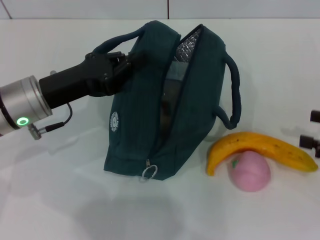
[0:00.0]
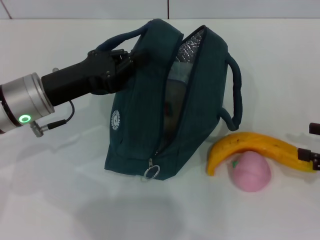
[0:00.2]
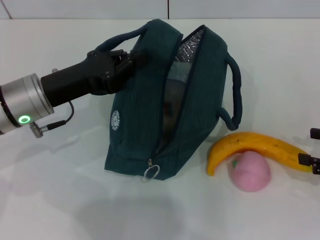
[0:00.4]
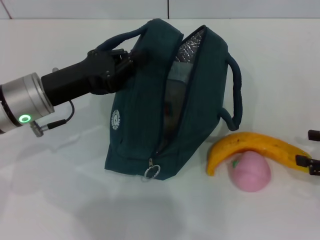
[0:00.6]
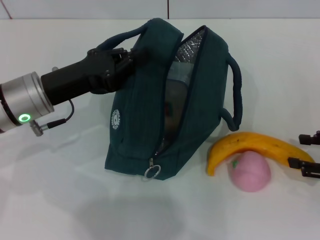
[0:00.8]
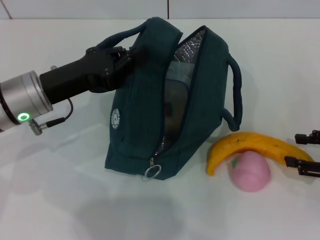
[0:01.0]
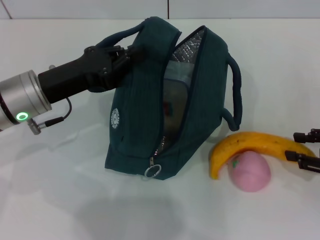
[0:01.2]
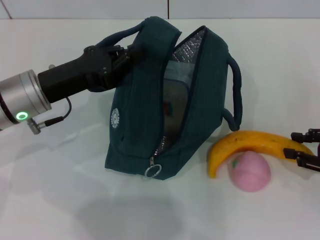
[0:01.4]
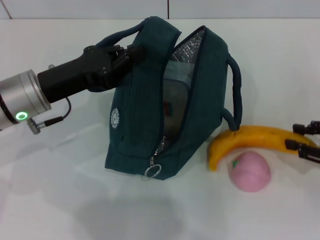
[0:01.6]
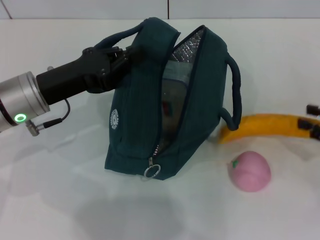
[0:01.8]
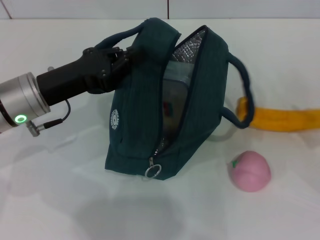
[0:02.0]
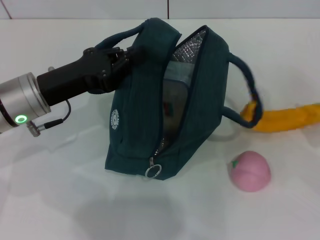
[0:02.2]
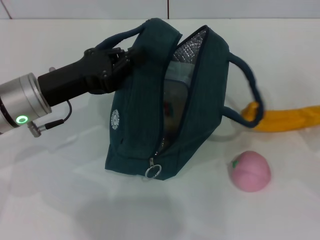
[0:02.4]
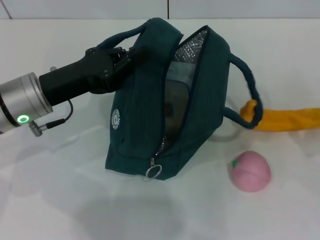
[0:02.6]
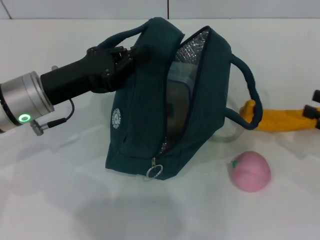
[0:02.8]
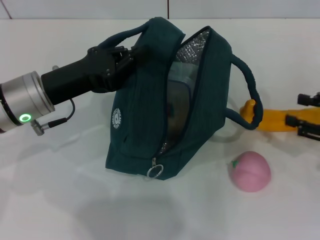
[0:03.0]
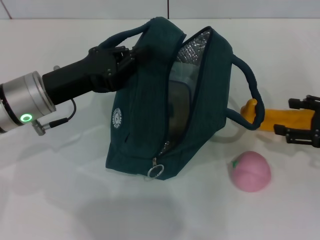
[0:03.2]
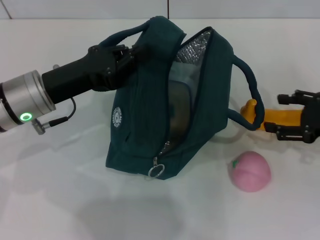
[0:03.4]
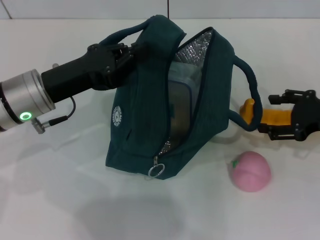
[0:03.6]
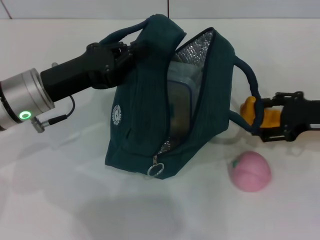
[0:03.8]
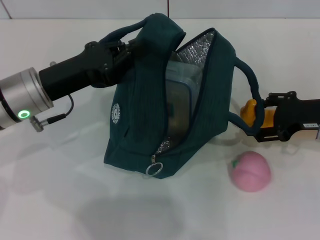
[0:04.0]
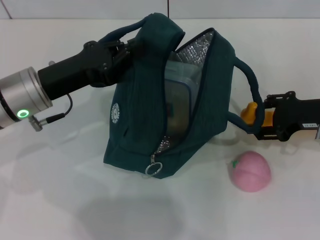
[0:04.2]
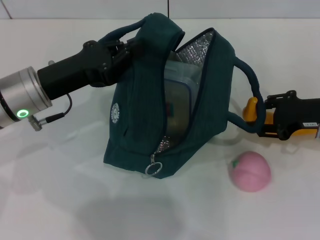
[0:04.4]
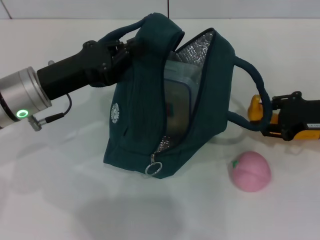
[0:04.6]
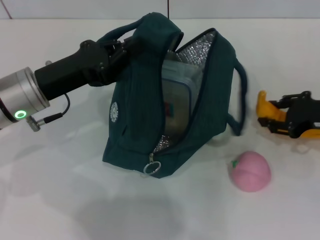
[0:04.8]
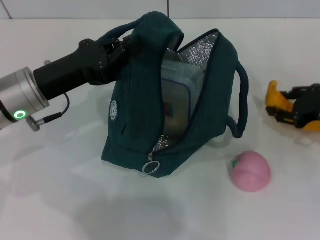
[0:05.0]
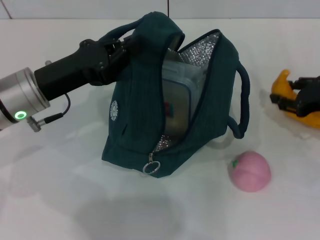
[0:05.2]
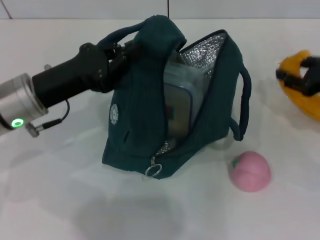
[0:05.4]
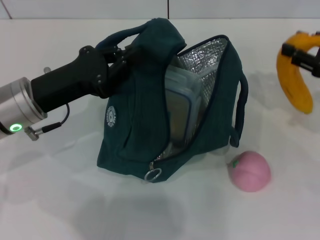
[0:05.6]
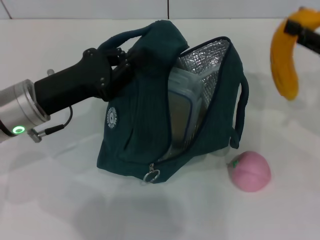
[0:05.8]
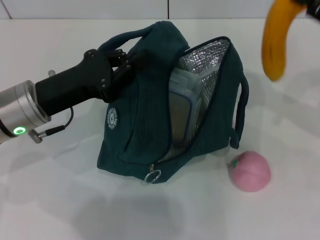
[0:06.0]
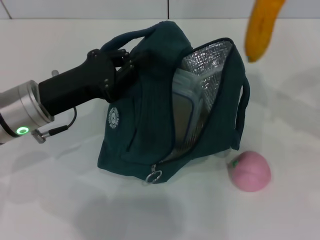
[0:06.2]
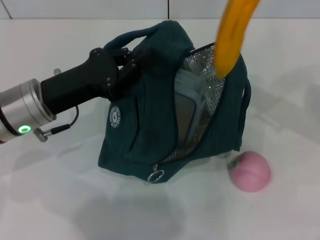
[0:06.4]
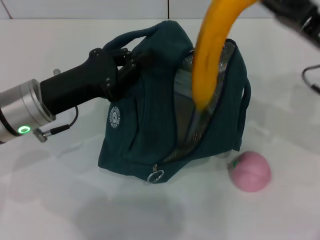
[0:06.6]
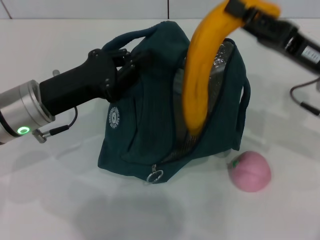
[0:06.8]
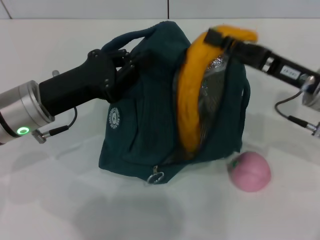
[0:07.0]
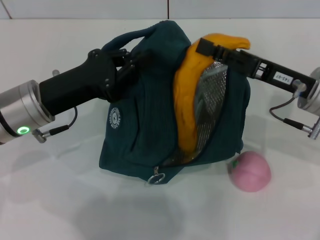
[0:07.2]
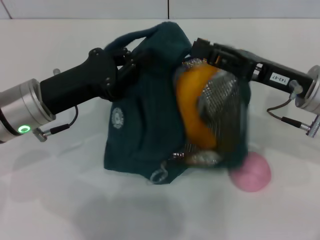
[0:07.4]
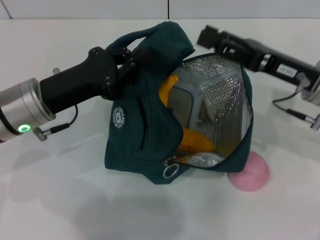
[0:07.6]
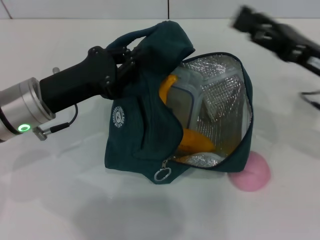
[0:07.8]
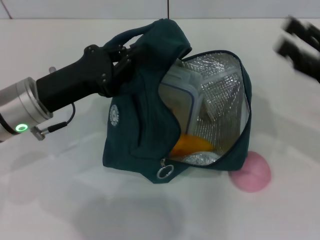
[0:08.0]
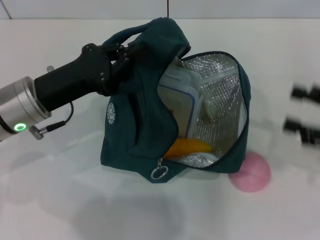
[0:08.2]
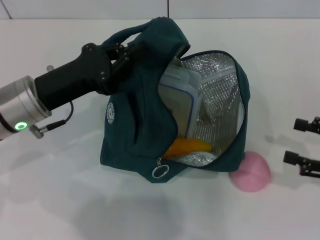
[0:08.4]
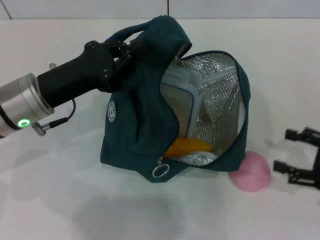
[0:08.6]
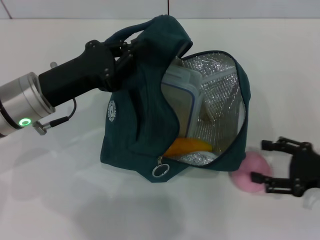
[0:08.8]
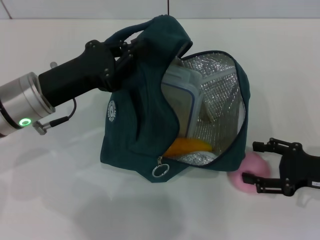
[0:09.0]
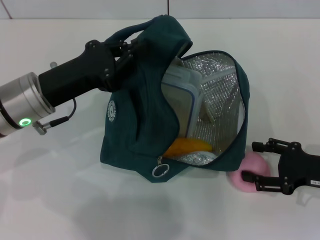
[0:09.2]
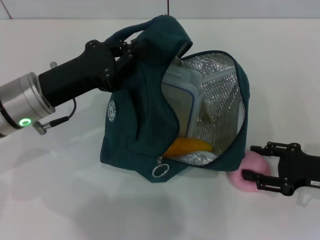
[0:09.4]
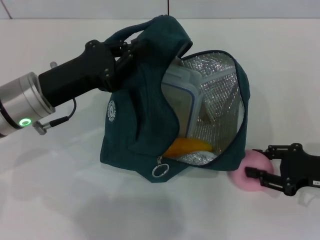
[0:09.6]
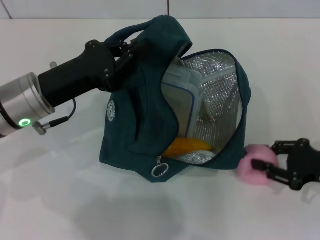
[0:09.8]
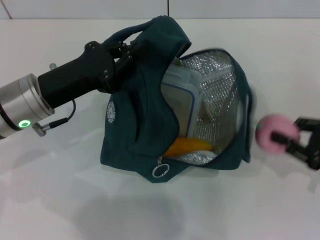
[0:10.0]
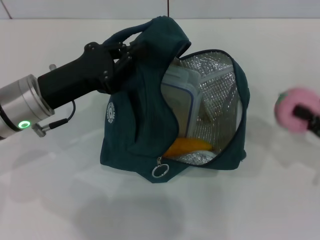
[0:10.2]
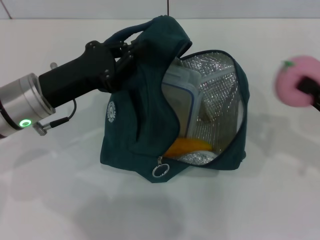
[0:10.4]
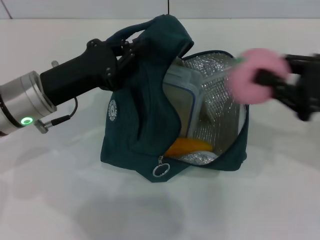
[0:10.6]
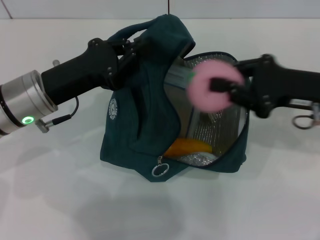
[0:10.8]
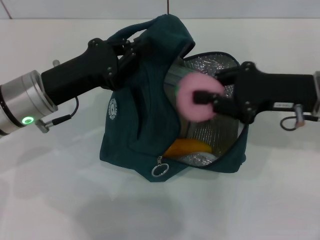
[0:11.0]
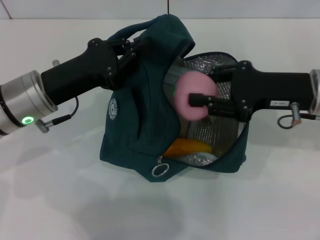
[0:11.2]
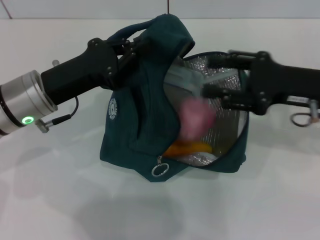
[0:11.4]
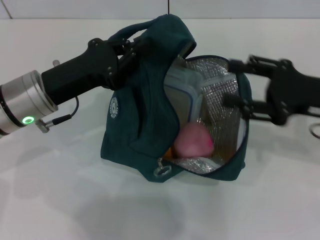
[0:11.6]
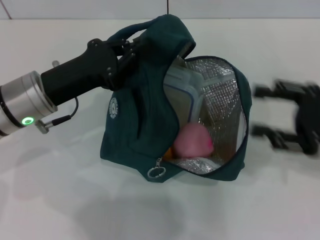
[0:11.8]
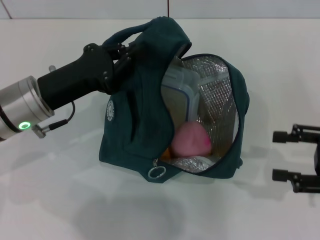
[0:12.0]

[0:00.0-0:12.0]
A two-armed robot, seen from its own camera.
Step, 0:00.0 to 0:04.2: Take the banana with your right hand.
Step, 0:04.4 to 0:07.8: Put the banana into the lunch bag with your right hand.
Step, 0:08.0 to 0:09.6: Grab the peach with your right hand.
0:00.0 to 0:01.6: The right gripper closes its fingers.
0:03.0 to 0:04.4: The right gripper shifts about 10 cm to the left and forward.
0:04.4 to 0:06.0: The right gripper travels upward by about 10 cm.
0:06.0 to 0:07.6: The right gripper travels to the left and downward by some 10 cm.
0:07.6 to 0:09.0: The right gripper is displaced downward, to the right and backward by some 15 cm.
0:09.0 to 0:10.4: The right gripper is displaced upward by about 5 cm, and closes up.
0:10.4 to 0:12.0: The right gripper travels to the left and back again, some 10 cm each way, and opens its fingers.

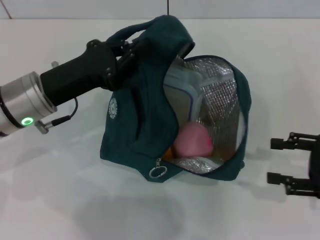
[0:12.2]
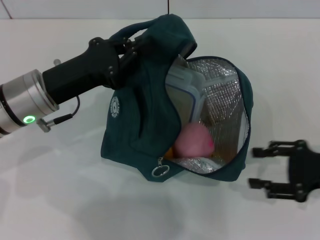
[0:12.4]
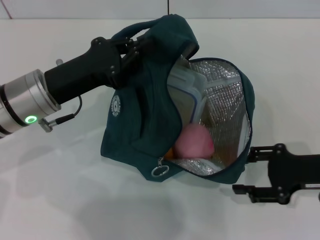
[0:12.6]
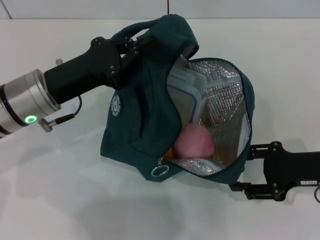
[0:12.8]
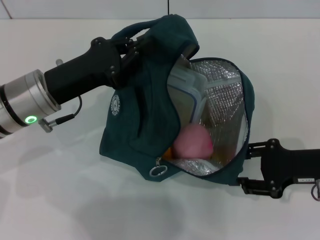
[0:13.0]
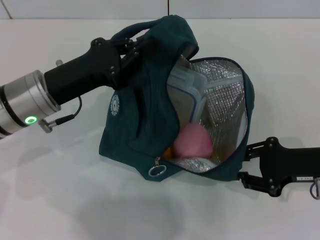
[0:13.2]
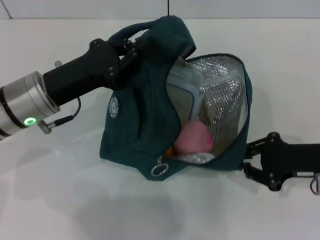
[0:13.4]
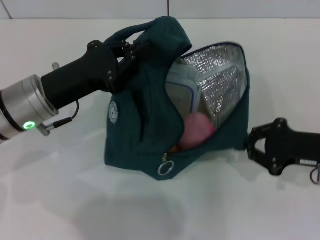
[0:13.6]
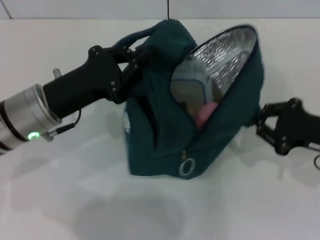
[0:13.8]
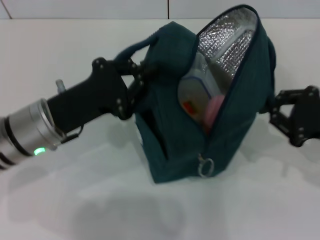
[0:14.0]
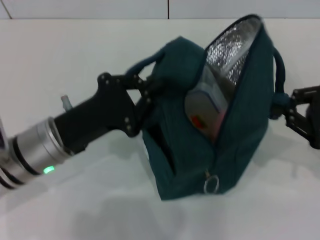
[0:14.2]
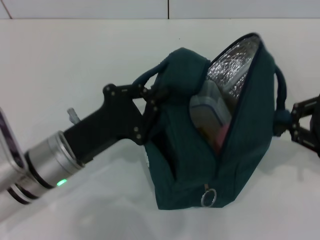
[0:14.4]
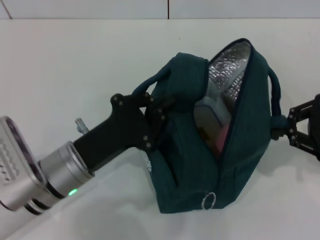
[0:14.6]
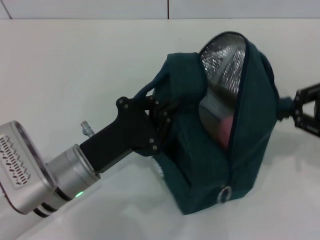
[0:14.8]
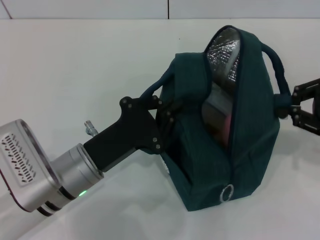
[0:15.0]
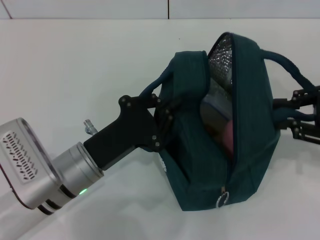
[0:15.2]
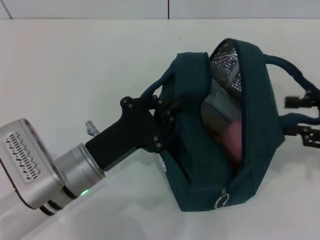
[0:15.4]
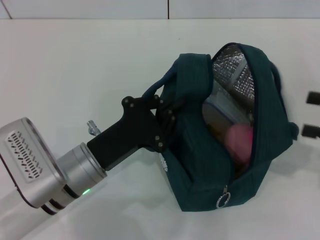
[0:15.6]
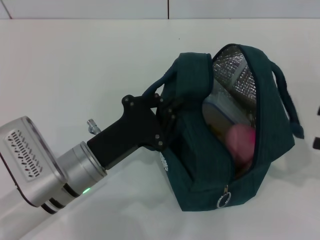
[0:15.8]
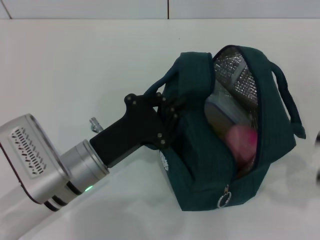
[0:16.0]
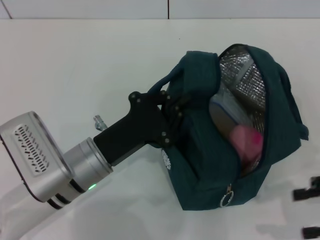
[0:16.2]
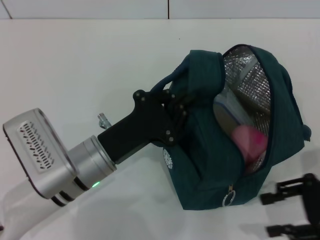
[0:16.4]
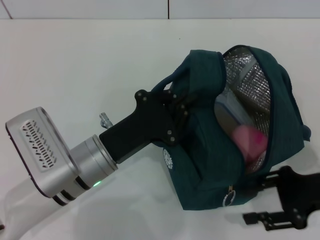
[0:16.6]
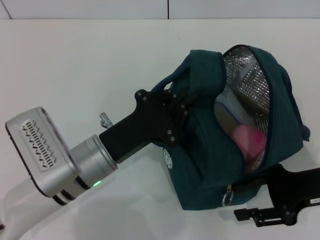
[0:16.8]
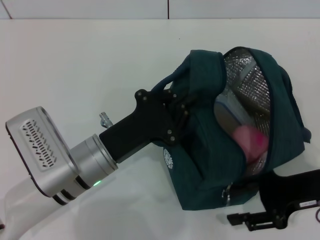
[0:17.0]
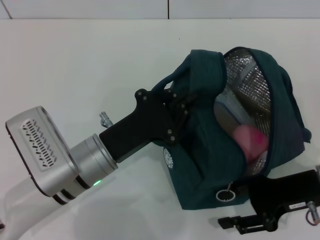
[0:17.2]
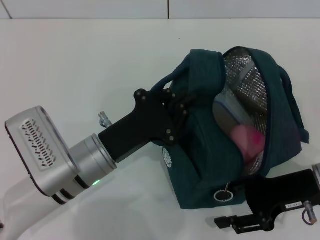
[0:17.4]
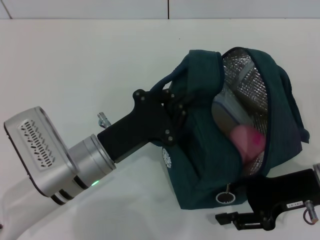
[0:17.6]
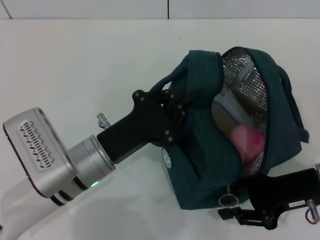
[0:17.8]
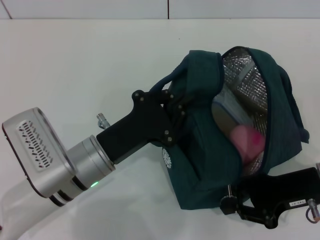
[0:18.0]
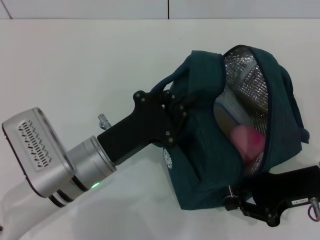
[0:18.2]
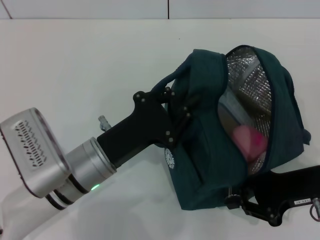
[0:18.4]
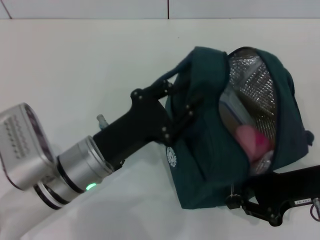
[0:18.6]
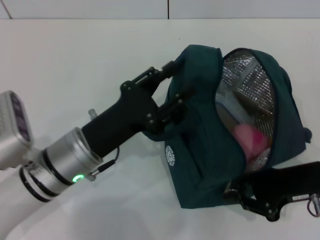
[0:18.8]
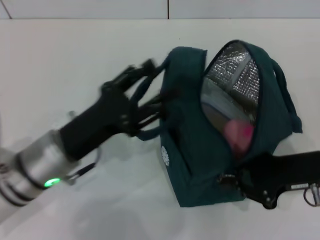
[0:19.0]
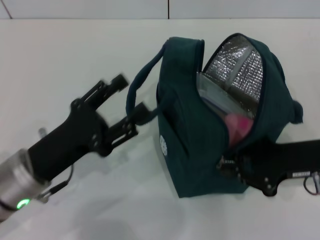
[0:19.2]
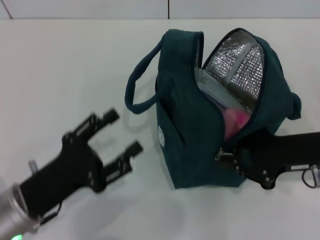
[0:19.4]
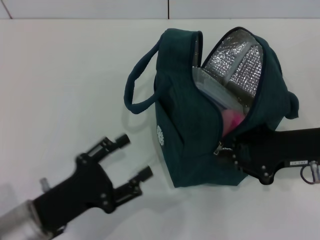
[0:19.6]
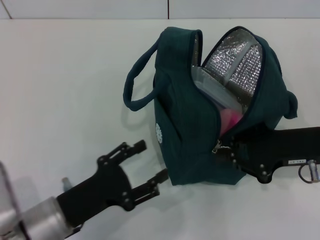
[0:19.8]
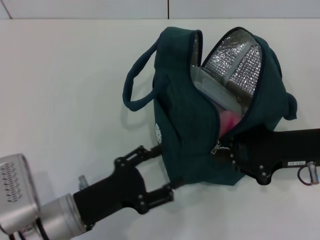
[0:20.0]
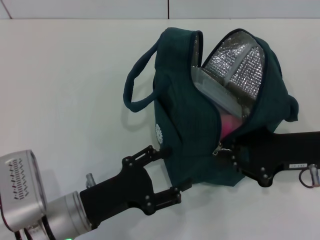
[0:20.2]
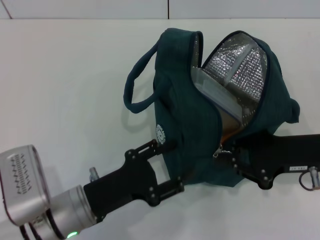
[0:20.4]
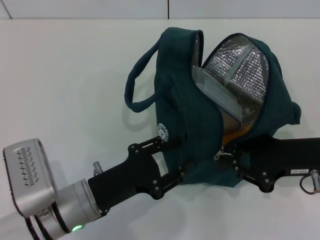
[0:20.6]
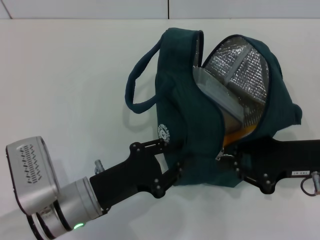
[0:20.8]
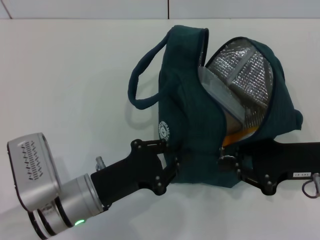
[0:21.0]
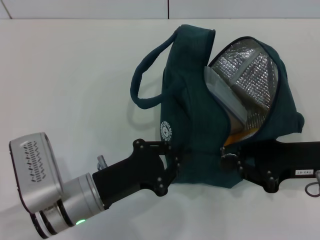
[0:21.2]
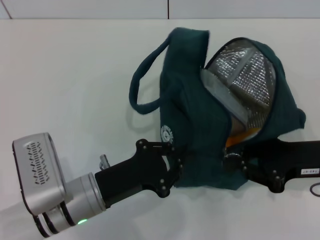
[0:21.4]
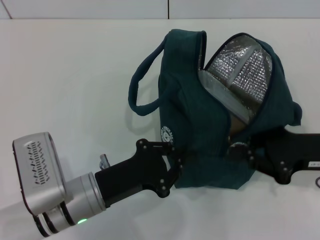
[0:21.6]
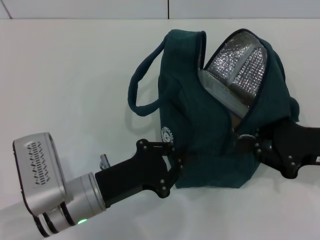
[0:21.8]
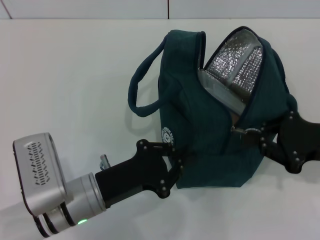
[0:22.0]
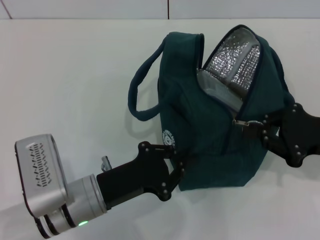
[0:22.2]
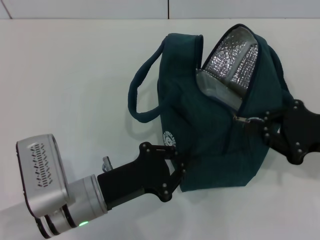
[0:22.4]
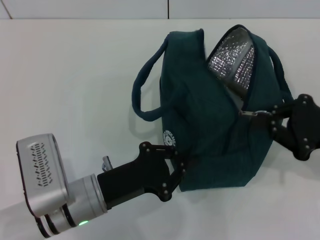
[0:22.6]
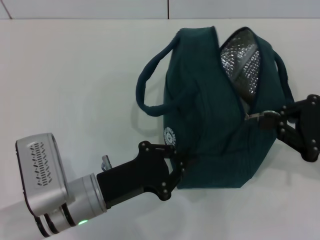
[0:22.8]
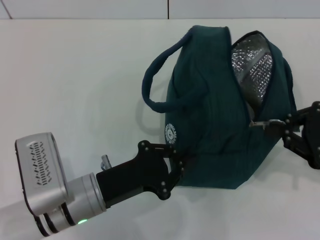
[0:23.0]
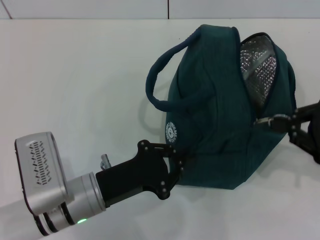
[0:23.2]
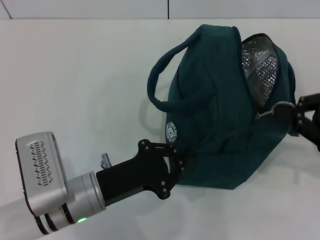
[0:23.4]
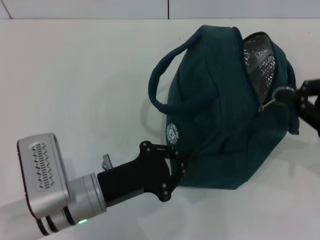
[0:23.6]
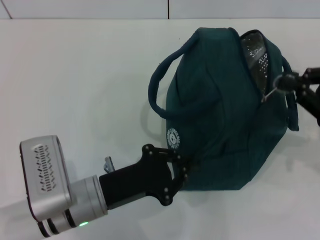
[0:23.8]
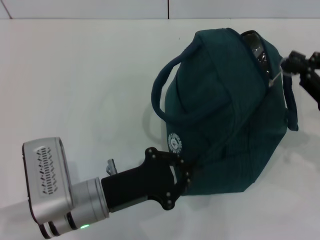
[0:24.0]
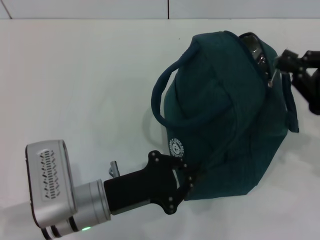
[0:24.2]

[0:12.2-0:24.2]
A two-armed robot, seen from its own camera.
Step, 0:12.2 to 0:15.6: Hold the lunch bag with your right hand.
Step, 0:16.0 to 0:19.0: Hold the lunch bag with your left hand.
0:12.2 to 0:13.8: The right gripper changes place by roughly 5 cm, and closes.
0:13.8 to 0:15.2: The right gripper travels upward by approximately 10 cm. The left gripper heads backward, downward and to the right, covering approximately 10 cm.
0:15.2 to 0:16.6: The right gripper shifts roughly 10 cm downward, and opens its fingers.
0:16.6 to 0:18.2: The right gripper closes up.
0:18.2 to 0:19.8: The left gripper is displaced backward and to the left by approximately 10 cm, and opens up.
0:19.8 to 0:21.2: The left gripper changes place by about 5 cm, and closes.
